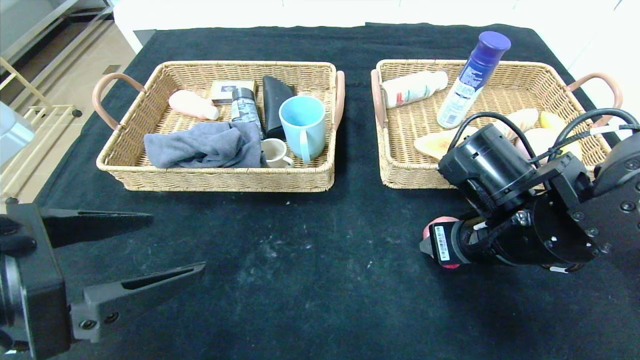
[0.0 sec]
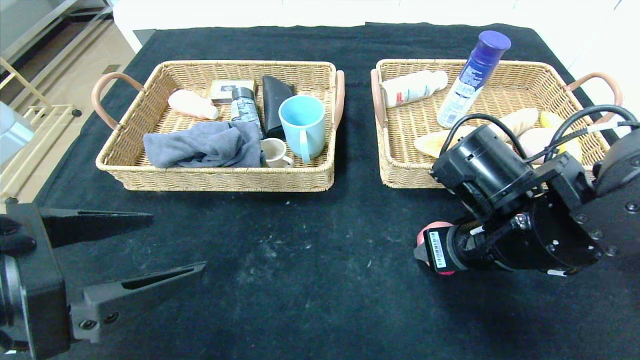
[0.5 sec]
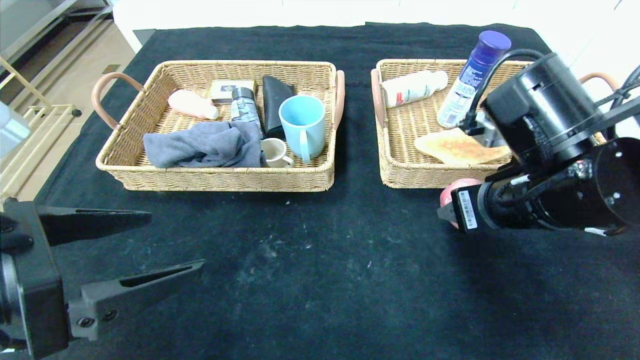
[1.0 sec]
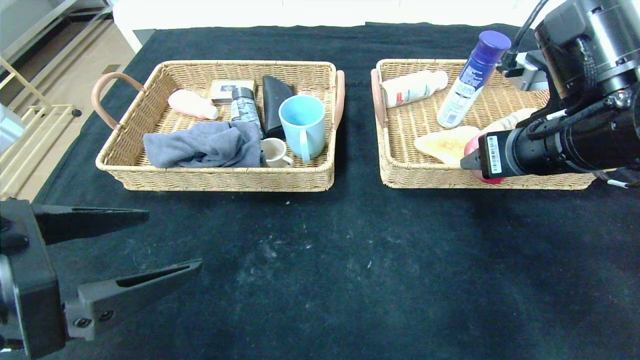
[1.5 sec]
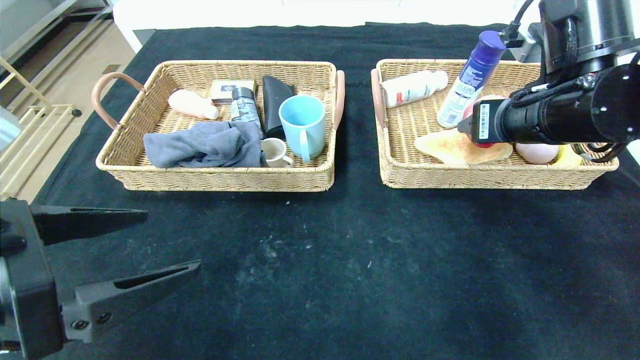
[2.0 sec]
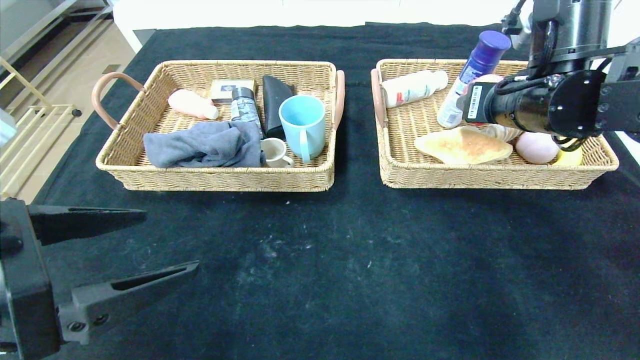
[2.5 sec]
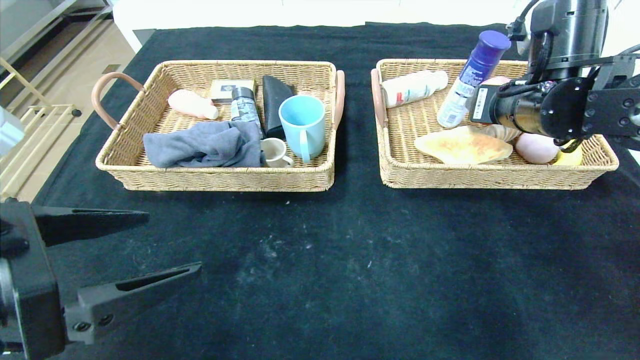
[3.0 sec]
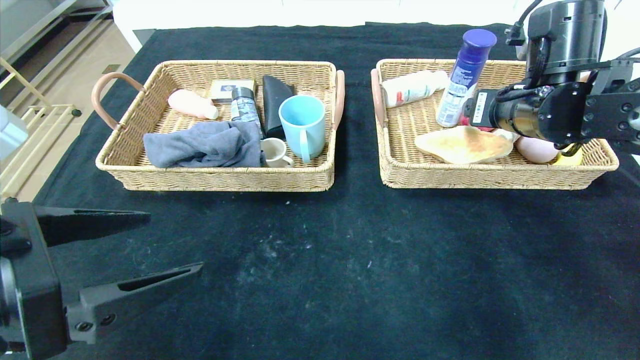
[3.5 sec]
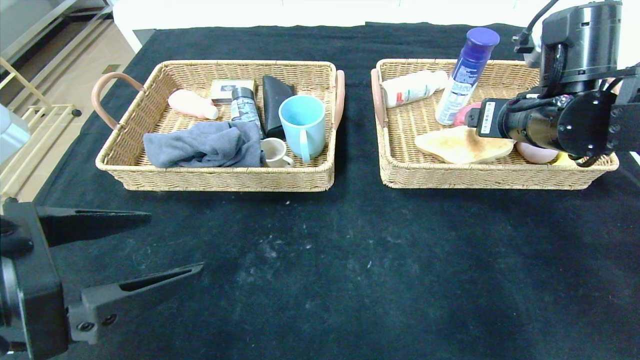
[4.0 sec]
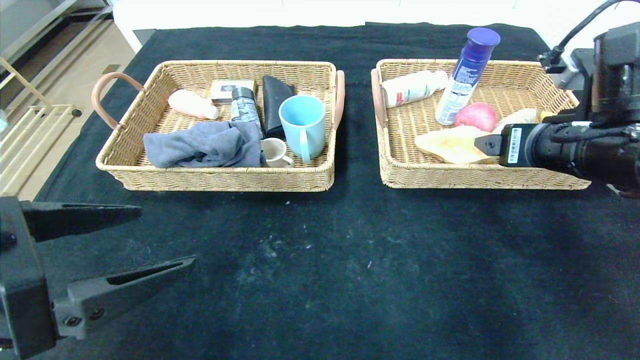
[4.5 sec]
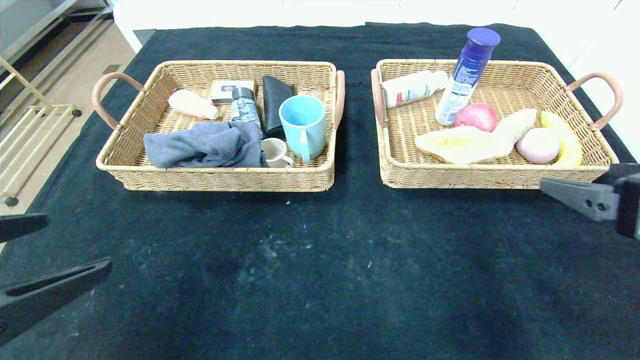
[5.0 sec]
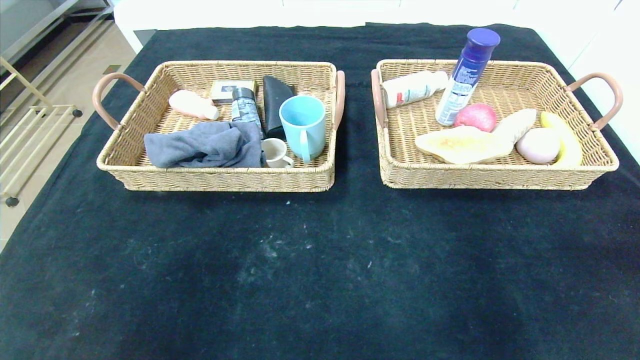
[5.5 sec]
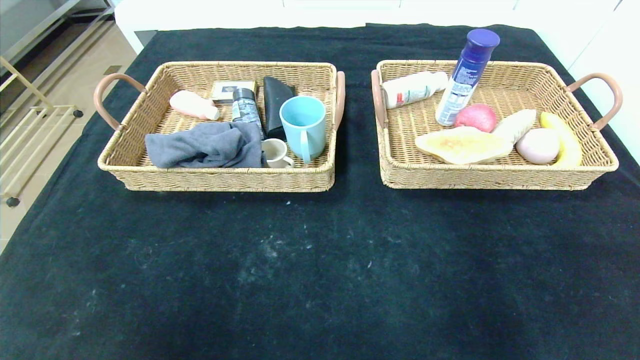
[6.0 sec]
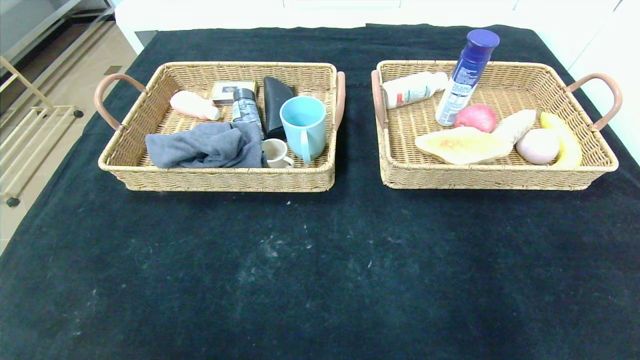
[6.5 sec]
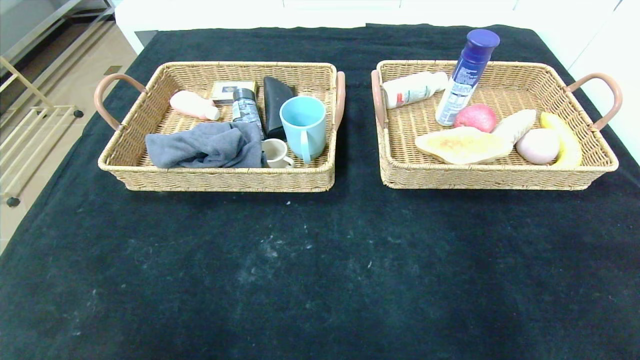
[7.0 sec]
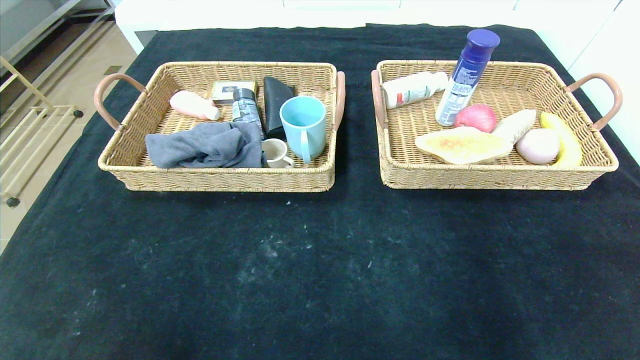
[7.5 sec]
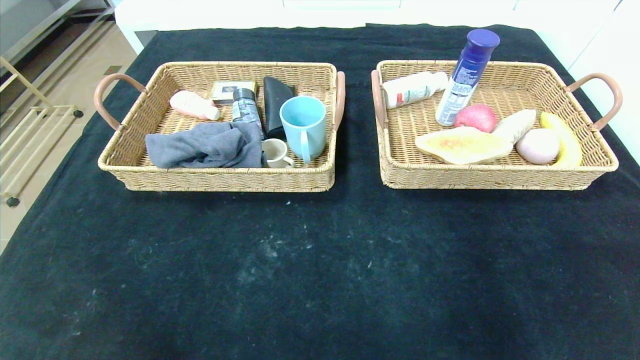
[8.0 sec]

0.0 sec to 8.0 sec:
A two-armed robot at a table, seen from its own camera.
Step, 0.0 sec to 3.0 sec: Grasp the peach and put it in the right basket.
0.0 sec to 2.0 sec: The right gripper heads upward and forward, covering roughly 10 cm.
2.0 sec to 4.0 sec: The grippers make only small movements.
4.0 sec to 6.0 sec: The left gripper shifts about 25 cm backward; the right gripper heads backward, covering some 40 cm.
